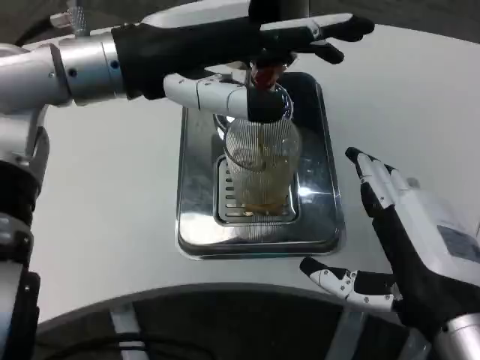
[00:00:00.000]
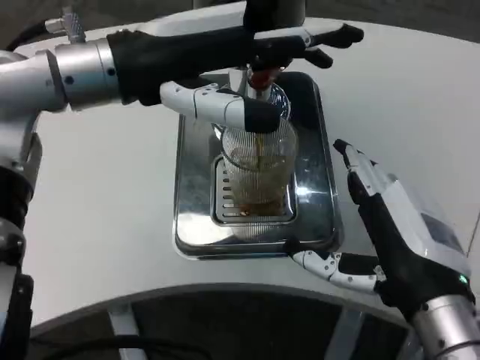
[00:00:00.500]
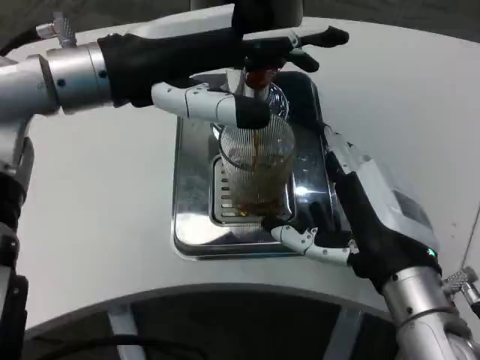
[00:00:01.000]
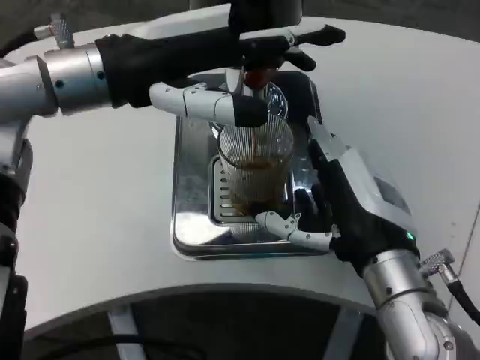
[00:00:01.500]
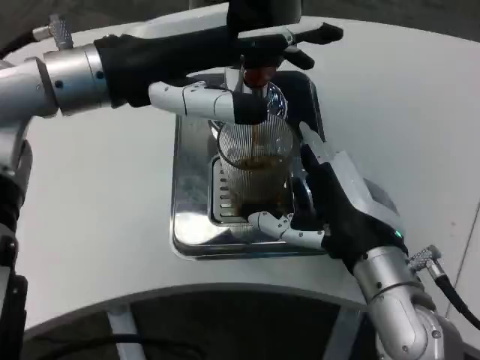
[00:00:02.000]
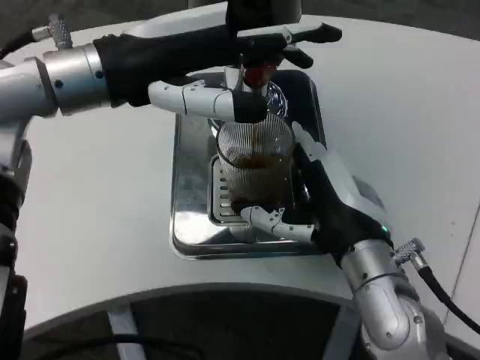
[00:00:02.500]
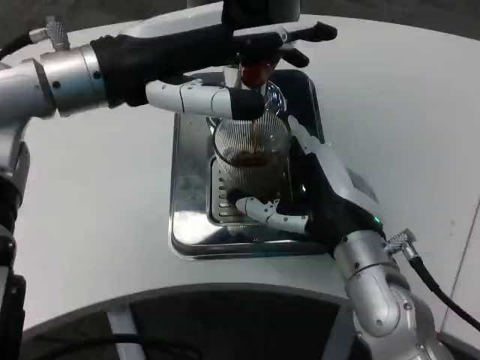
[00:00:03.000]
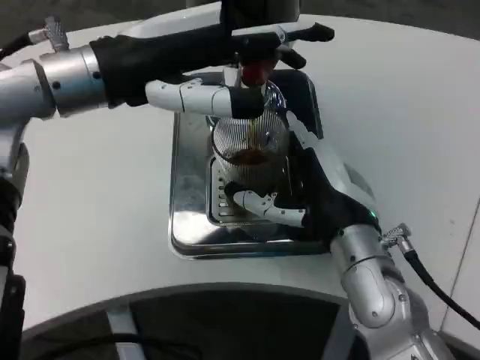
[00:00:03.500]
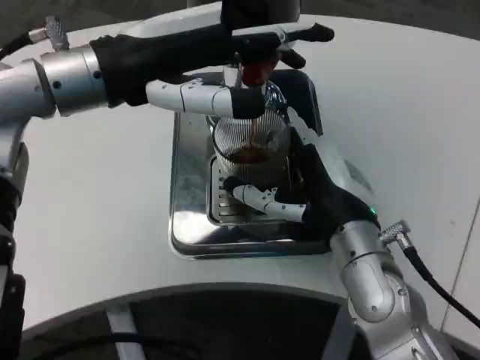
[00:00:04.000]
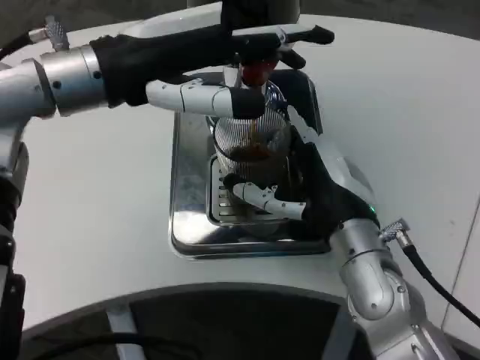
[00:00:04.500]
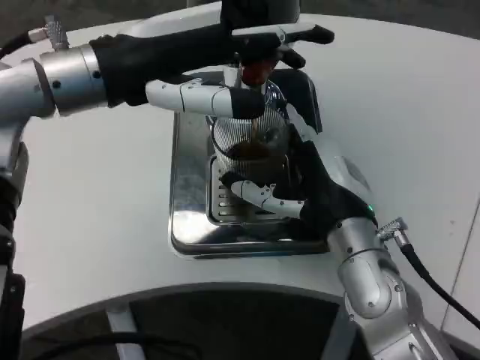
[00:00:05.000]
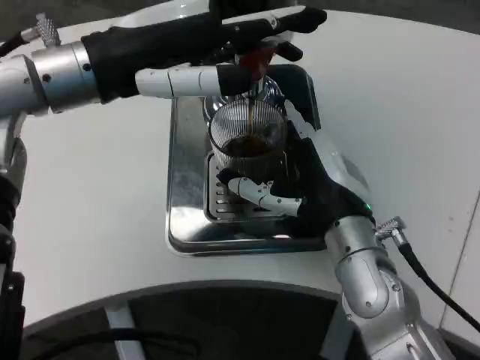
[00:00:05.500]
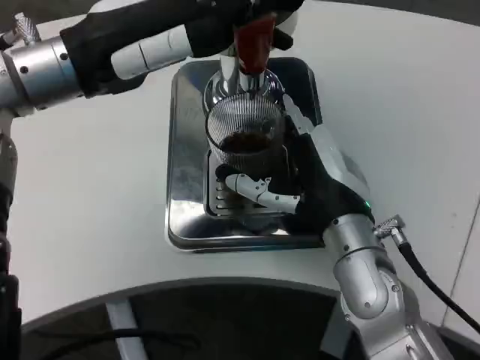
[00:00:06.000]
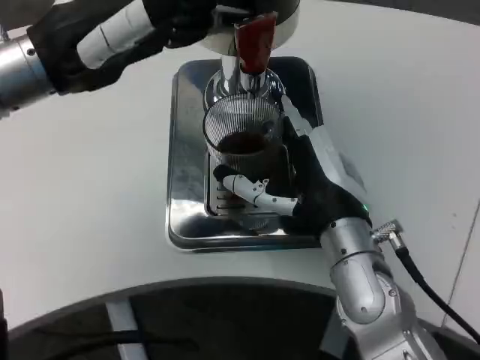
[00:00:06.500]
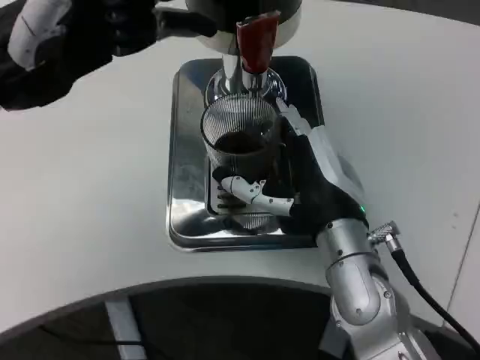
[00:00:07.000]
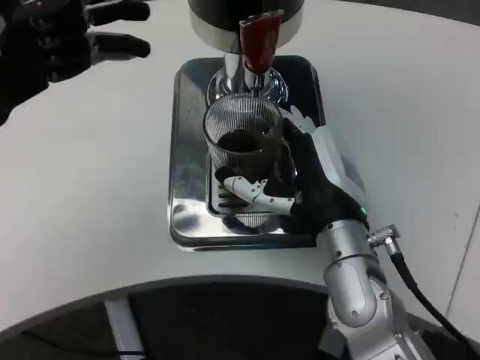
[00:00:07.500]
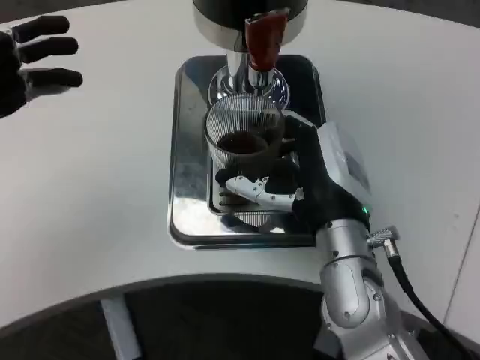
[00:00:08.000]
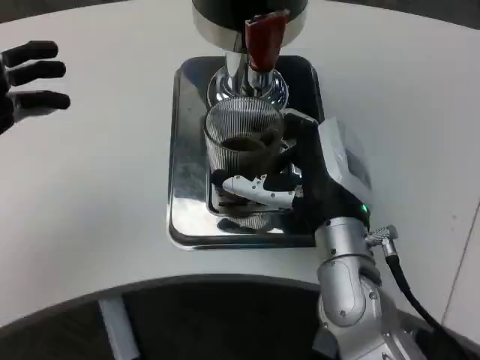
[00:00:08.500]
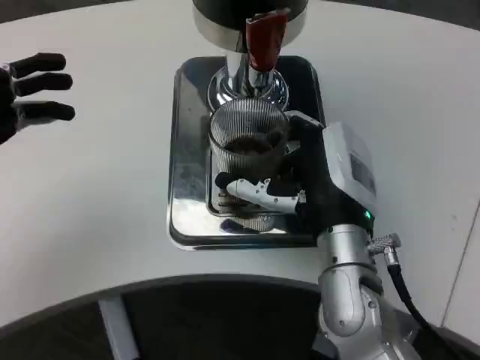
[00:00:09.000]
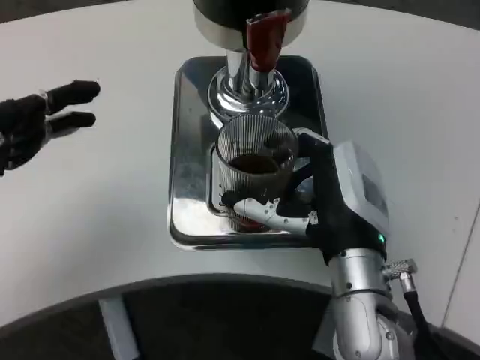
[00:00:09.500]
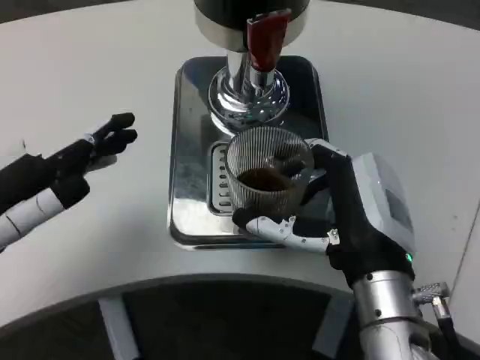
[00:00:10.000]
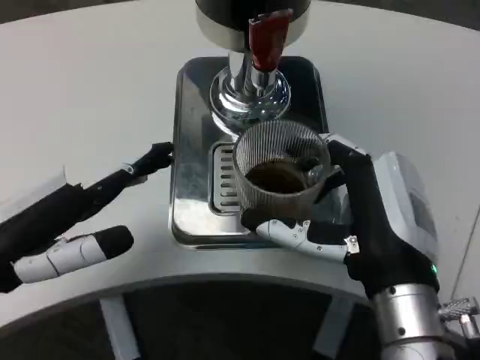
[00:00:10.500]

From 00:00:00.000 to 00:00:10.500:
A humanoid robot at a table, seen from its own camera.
Task of the whole recording: Grasp the cup under the faucet to collect the drink, then remove the cup.
From 00:00:00.000 to 00:00:02.000: The right hand shifts about 10 cm forward.
From 00:00:02.000 to 00:00:04.000: The hands move only a little.
From 00:00:06.500 to 00:00:08.500: The left hand heads to the left, backward and downward, covering some 15 cm.
From 00:00:08.500 to 00:00:10.500: The left hand is displaced to the right and downward by roughly 10 cm. Meanwhile the right hand moves backward, roughly 10 cm.

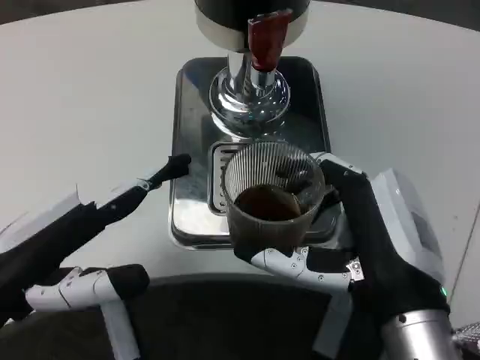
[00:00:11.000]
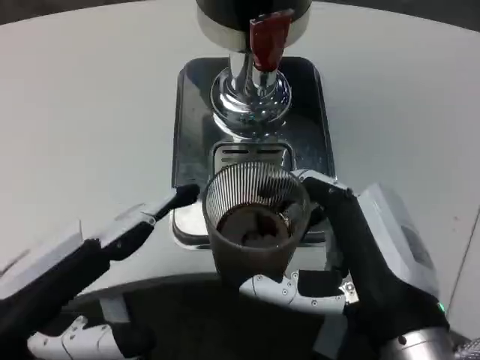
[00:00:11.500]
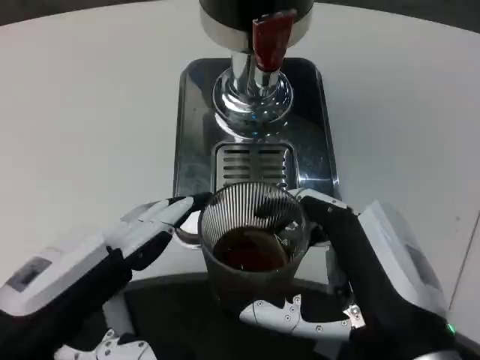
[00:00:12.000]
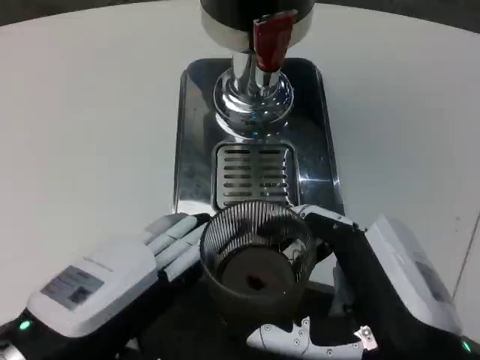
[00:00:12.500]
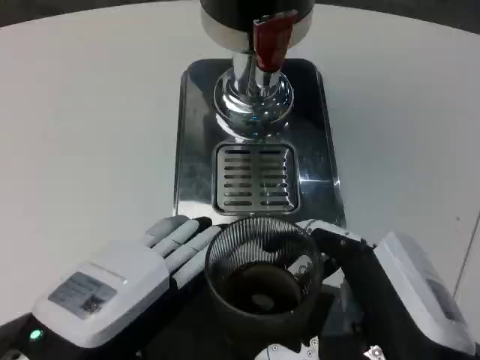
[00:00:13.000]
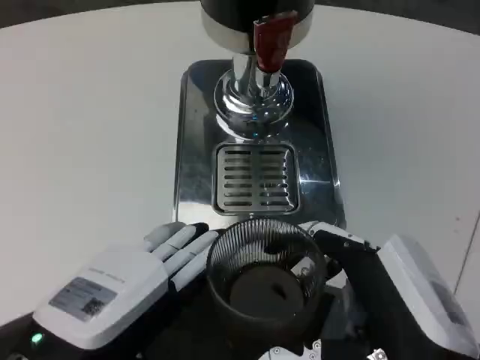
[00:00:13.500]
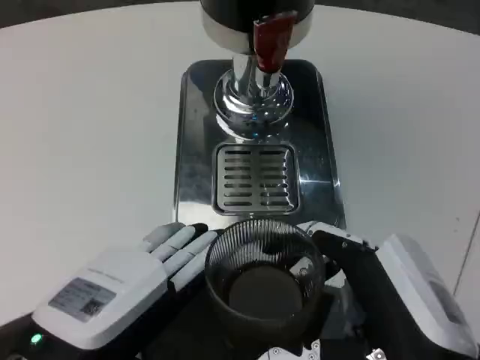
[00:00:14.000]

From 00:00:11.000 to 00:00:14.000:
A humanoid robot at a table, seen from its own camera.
Task of the whole recording: Grasp the cup under the faucet to collect the drink, then remove the cup.
From 00:00:11.000 to 00:00:12.500: The right hand moves some 5 cm. Meanwhile the left hand travels to the right by approximately 5 cm.
From 00:00:12.500 to 00:00:14.000: The hands move only a little.

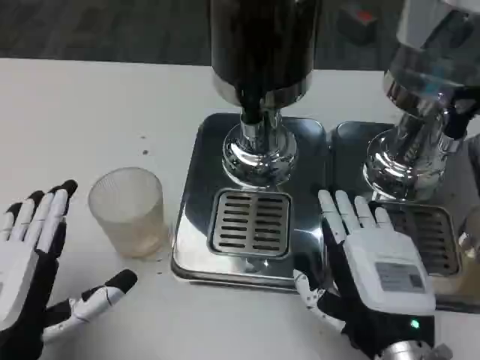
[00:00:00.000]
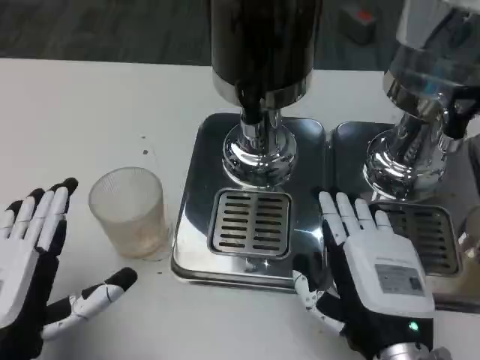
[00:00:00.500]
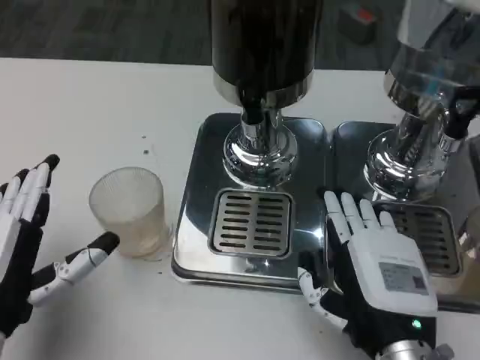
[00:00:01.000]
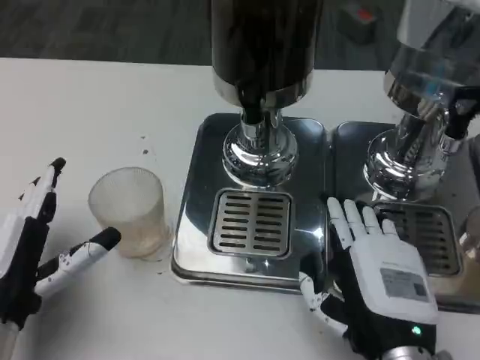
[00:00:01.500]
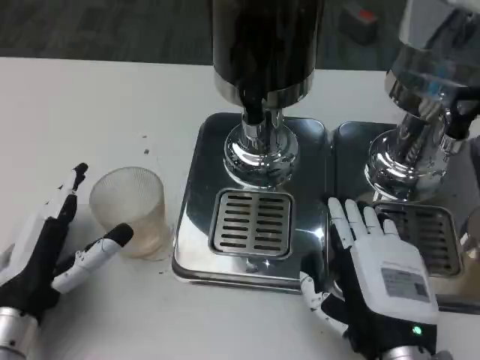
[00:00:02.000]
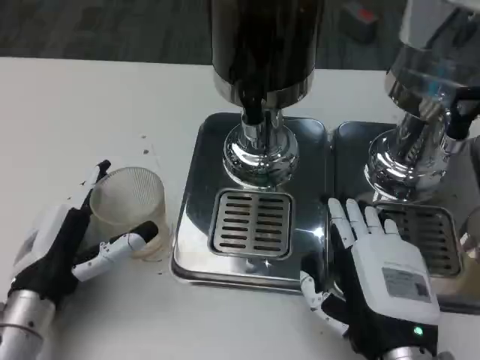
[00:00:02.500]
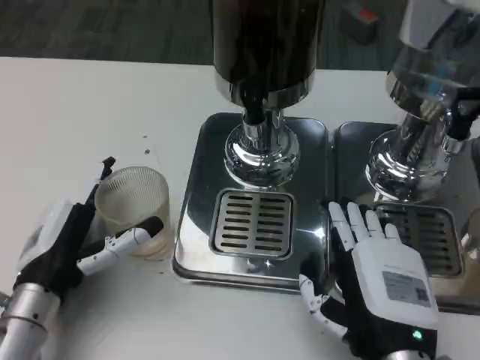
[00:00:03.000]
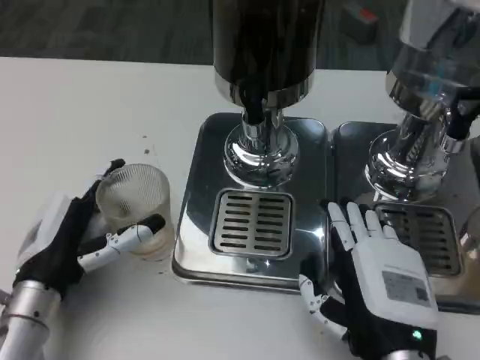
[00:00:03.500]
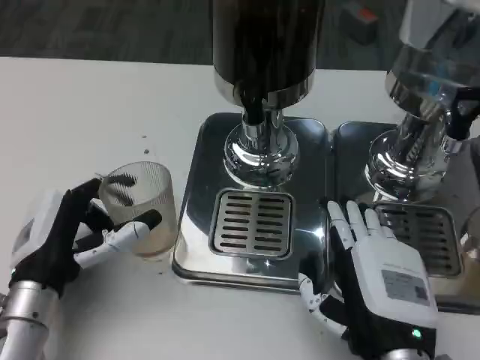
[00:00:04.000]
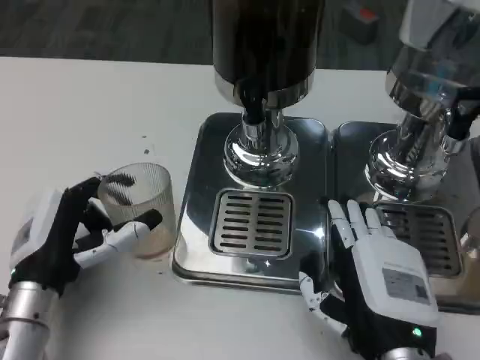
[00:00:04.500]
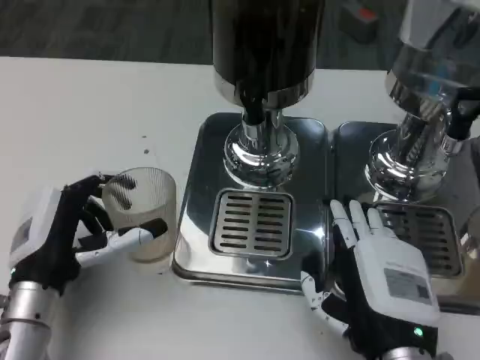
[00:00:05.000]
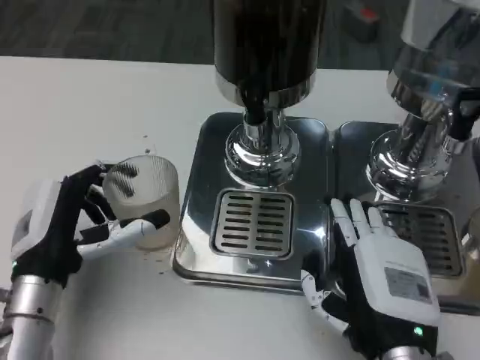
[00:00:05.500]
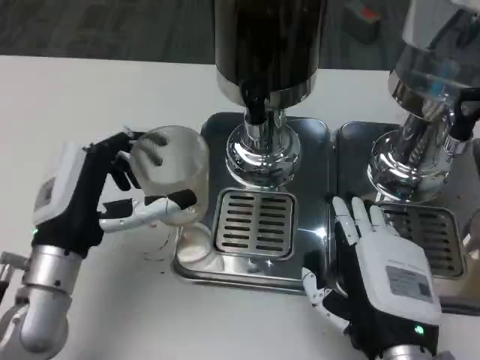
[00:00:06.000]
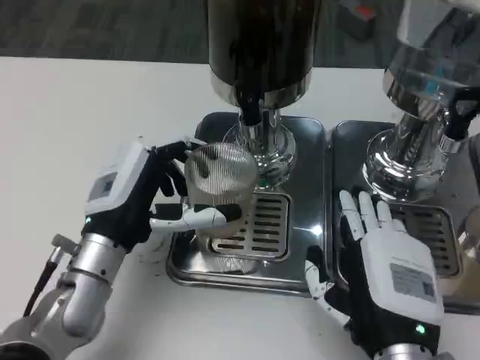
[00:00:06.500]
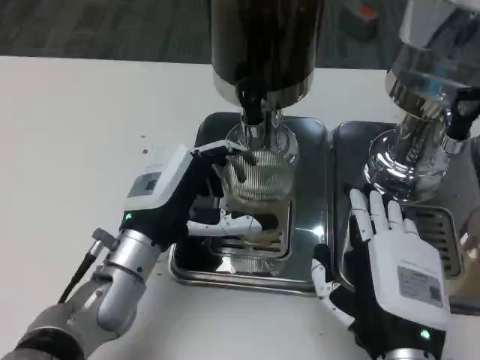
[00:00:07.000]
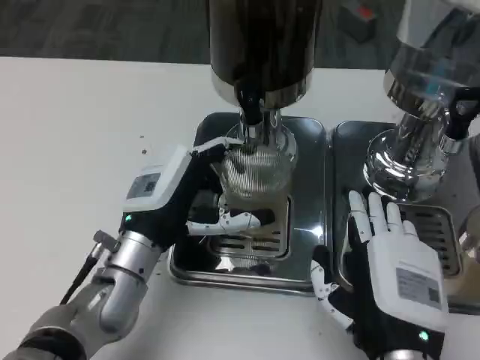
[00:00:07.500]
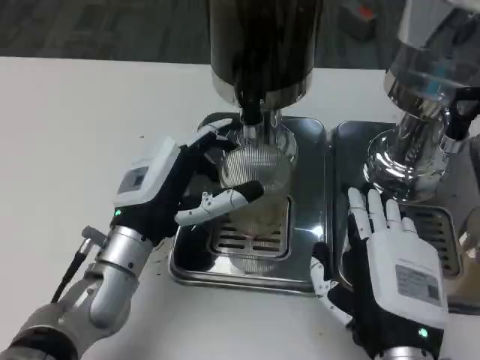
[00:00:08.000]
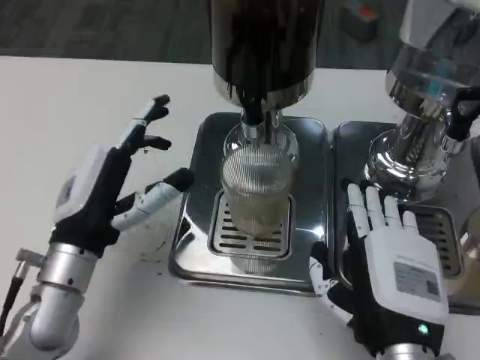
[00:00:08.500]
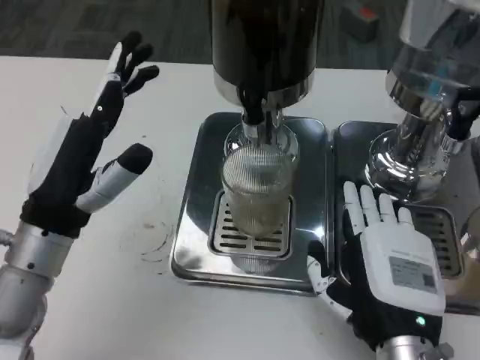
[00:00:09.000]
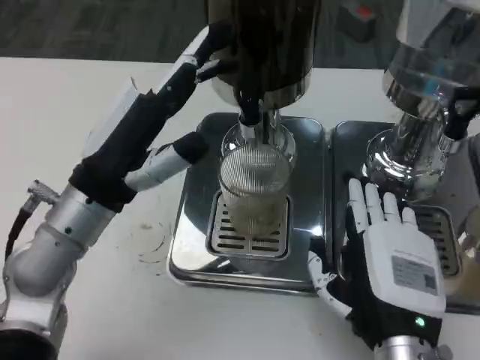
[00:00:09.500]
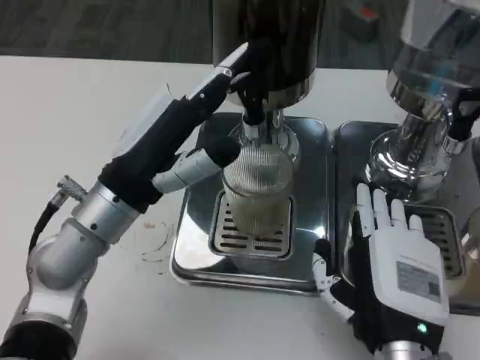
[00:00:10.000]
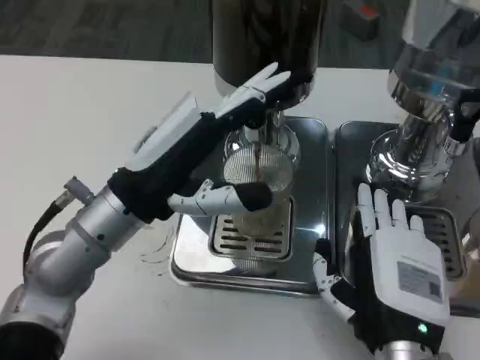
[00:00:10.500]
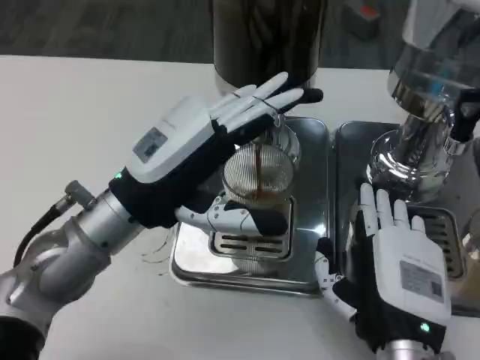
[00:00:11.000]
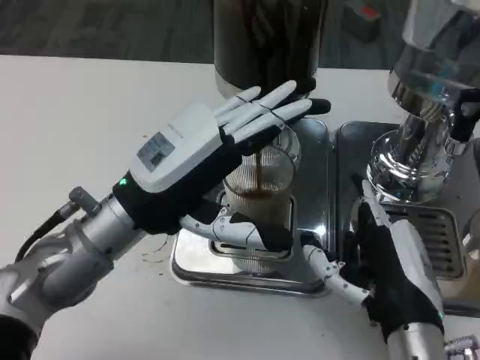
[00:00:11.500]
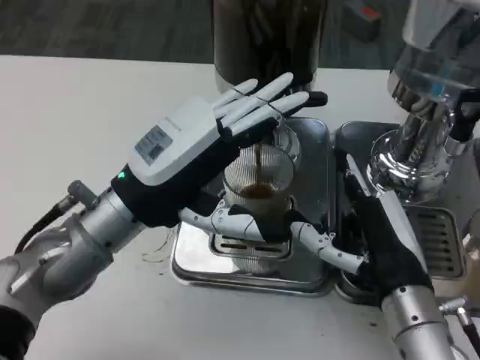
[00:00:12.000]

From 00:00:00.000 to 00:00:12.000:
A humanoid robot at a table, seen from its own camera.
Task of the whole recording: Grasp the cup under the faucet to collect the drink, then remove the cup.
From 00:00:00.000 to 00:00:02.000: The left hand goes some 5 cm forward.
From 00:00:02.000 to 00:00:04.000: The hands move only a little.
From 00:00:06.000 to 00:00:08.000: The left hand is displaced to the right by roughly 5 cm.
From 00:00:08.000 to 00:00:10.000: The left hand heads upward, covering about 5 cm.
From 00:00:10.000 to 00:00:12.000: The right hand changes place by roughly 5 cm.
